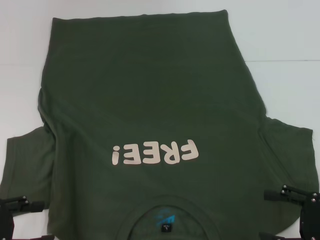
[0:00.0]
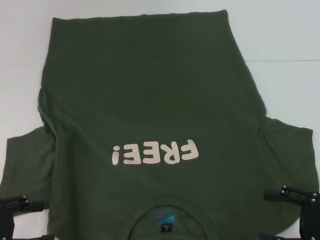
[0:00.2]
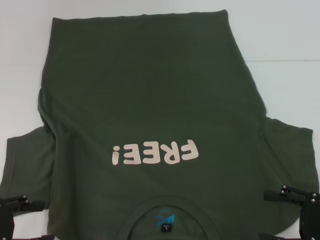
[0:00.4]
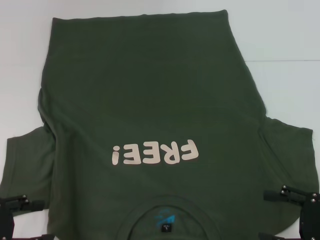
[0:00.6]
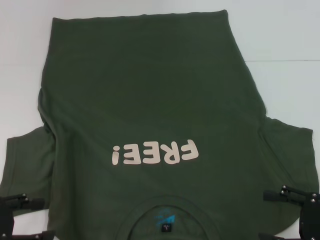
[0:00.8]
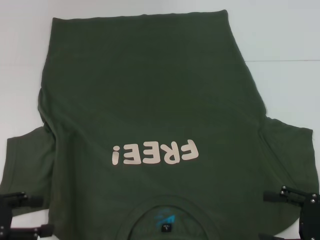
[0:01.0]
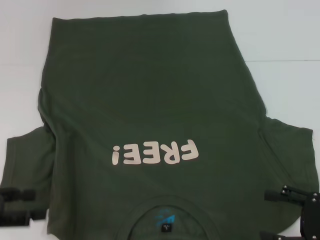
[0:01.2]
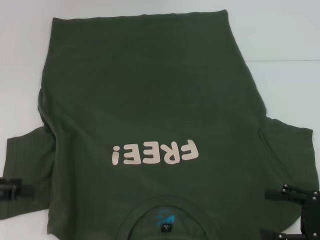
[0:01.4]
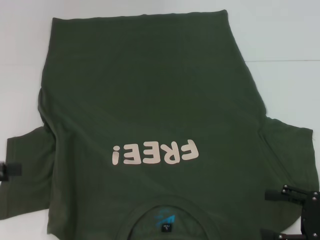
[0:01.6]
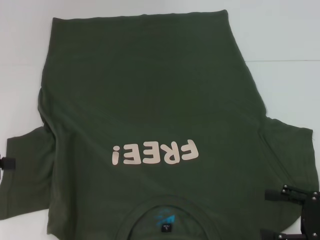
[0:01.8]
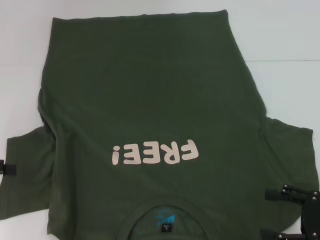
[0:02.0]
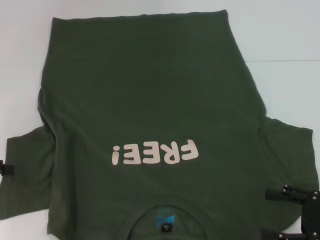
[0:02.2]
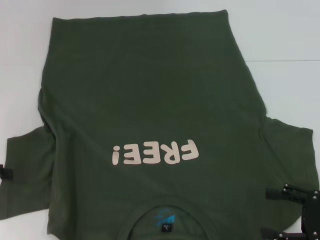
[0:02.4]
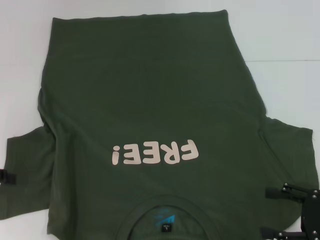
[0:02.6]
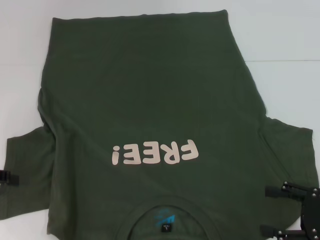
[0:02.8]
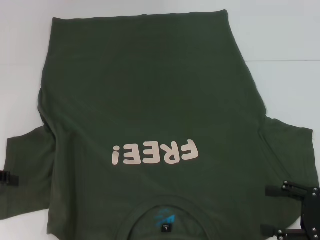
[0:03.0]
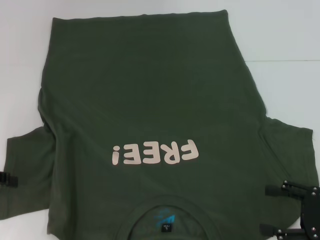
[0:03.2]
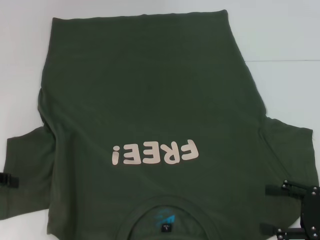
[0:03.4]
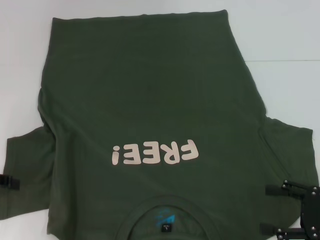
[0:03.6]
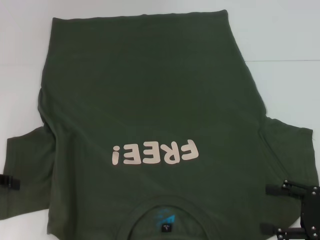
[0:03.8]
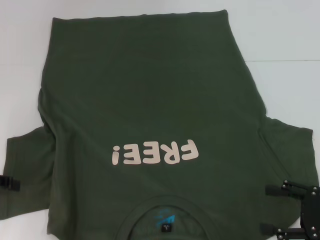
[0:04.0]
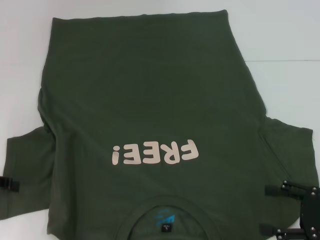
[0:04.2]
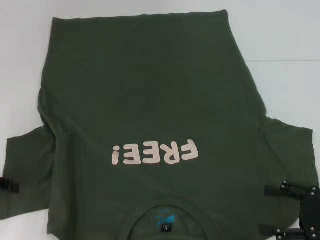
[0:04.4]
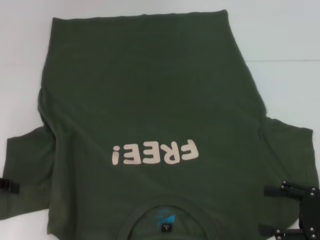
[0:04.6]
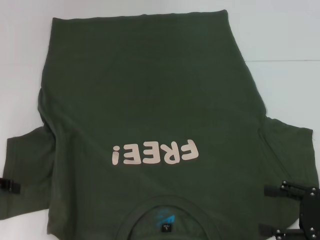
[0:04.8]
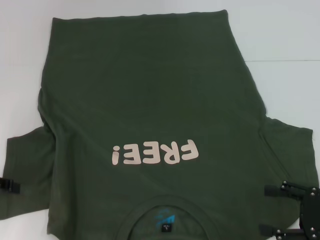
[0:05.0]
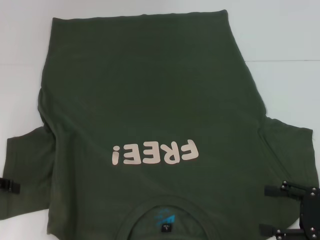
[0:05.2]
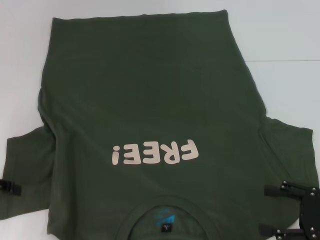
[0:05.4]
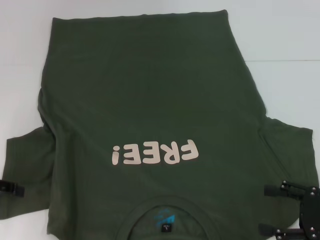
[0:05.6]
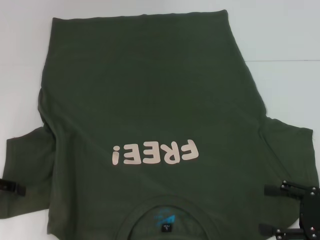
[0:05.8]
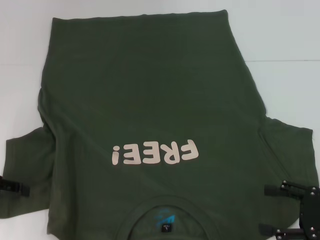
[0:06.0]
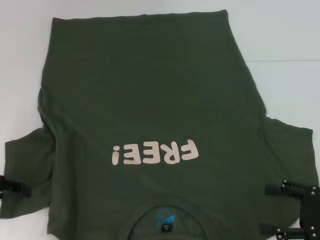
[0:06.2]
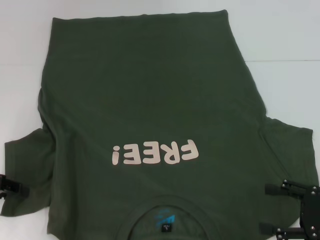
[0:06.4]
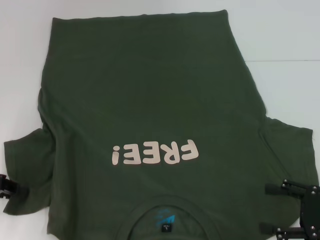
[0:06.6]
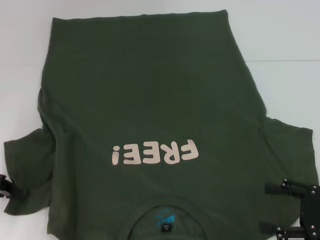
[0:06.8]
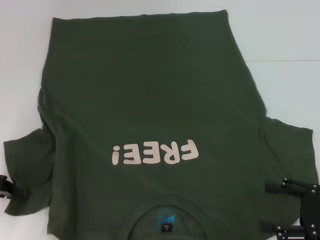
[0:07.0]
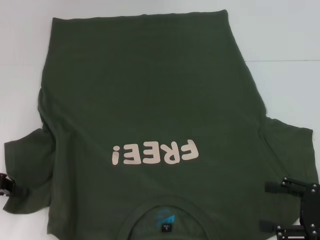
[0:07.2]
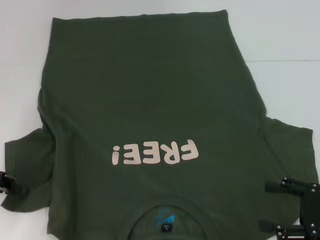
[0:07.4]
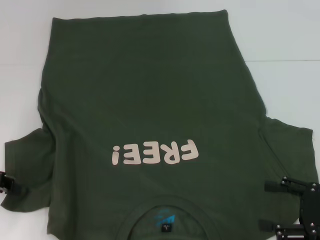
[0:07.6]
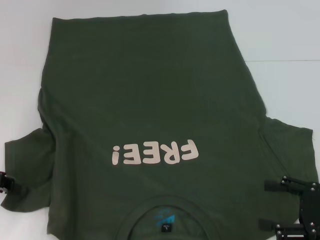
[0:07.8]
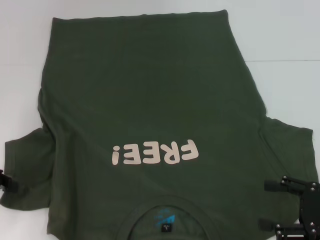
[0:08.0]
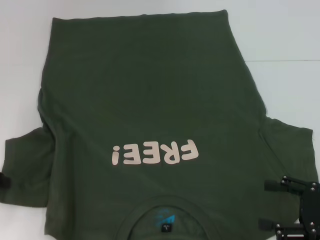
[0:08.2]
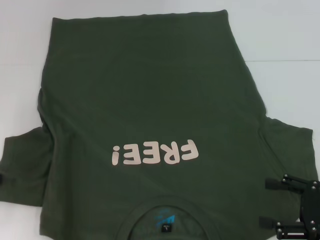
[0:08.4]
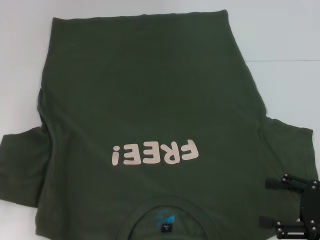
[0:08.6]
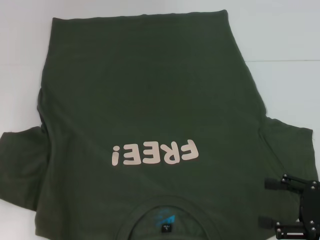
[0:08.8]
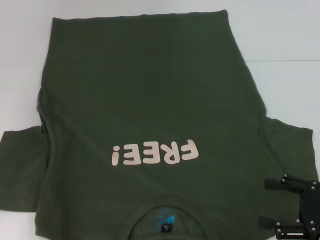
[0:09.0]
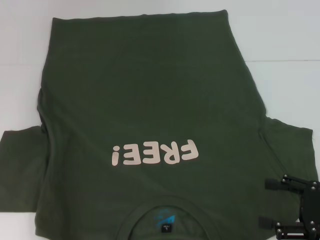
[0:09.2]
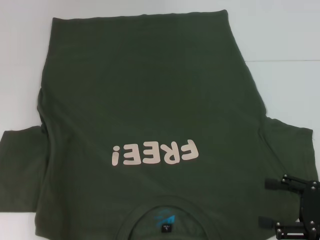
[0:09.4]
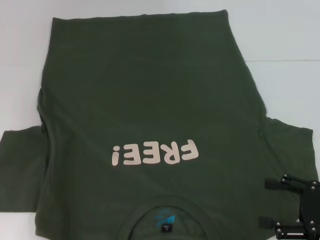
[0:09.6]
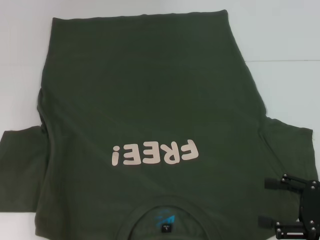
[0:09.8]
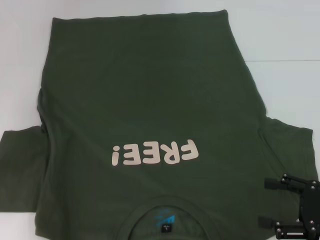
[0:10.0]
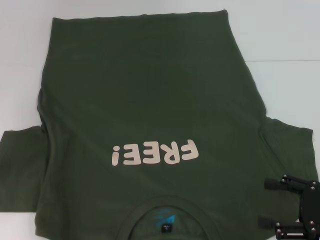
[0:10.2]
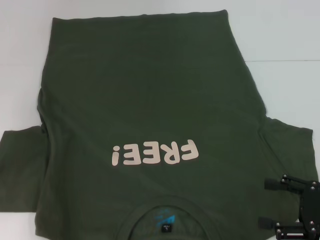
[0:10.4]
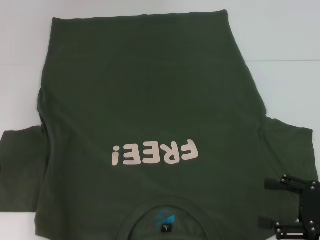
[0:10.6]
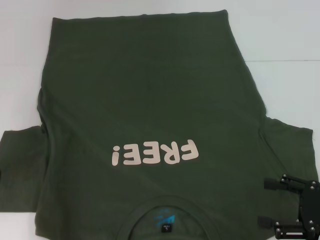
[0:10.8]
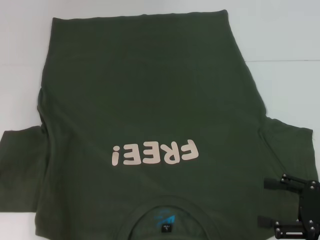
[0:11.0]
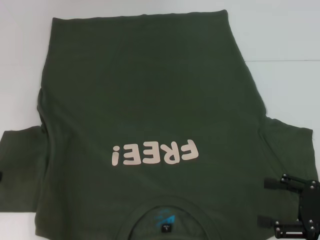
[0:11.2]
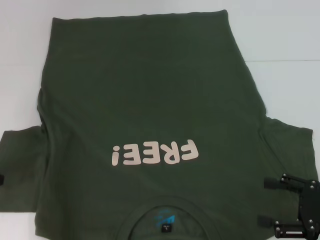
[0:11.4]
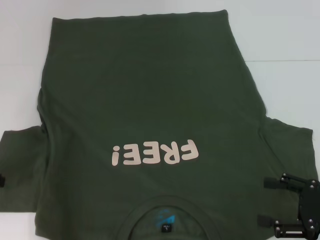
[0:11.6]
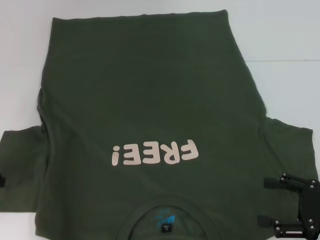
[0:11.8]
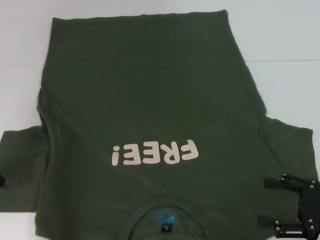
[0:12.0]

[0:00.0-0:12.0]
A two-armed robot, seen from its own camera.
0:00.0 to 0:01.6: The left gripper moves upward, about 5 cm.
0:06.0 to 0:07.6: The left gripper closes its fingers.
0:07.6 to 0:09.0: The left gripper shifts about 5 cm upward.

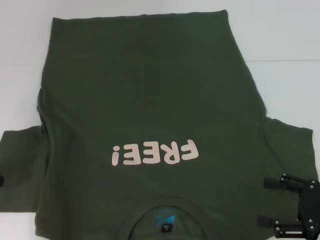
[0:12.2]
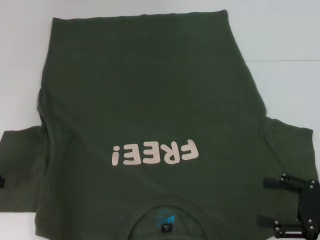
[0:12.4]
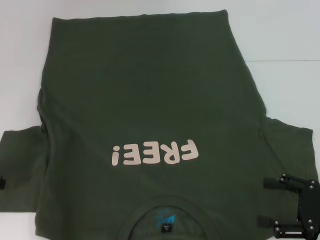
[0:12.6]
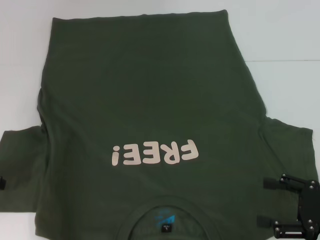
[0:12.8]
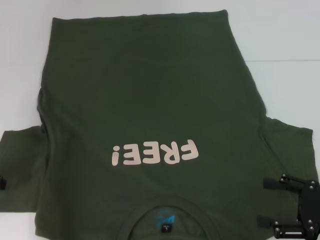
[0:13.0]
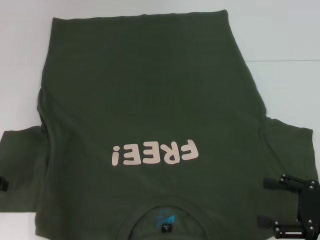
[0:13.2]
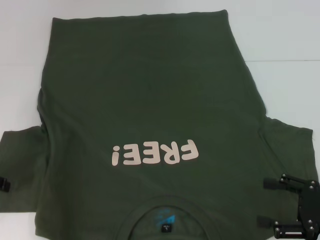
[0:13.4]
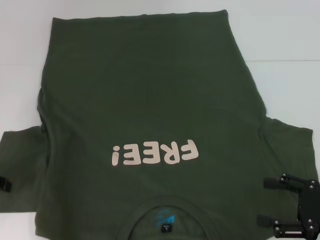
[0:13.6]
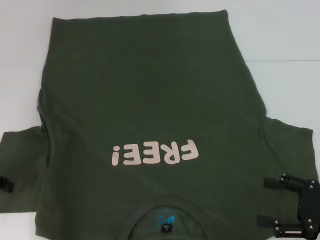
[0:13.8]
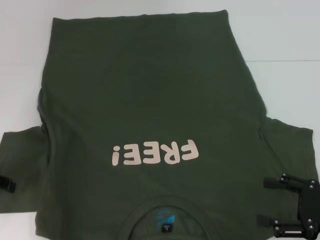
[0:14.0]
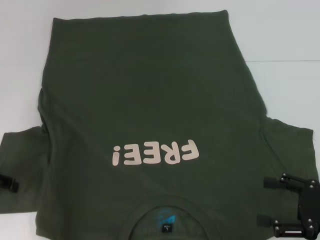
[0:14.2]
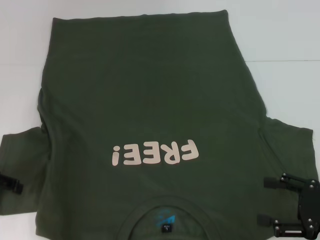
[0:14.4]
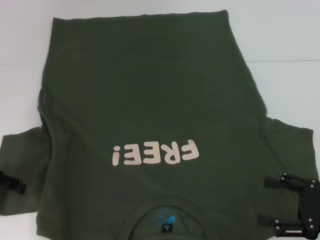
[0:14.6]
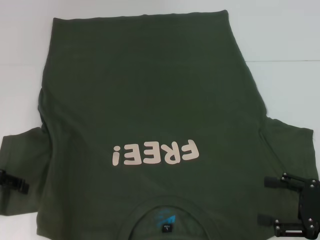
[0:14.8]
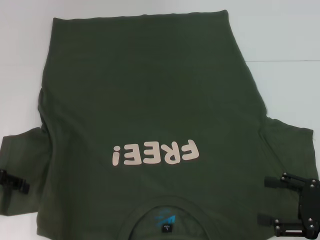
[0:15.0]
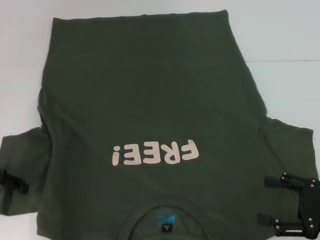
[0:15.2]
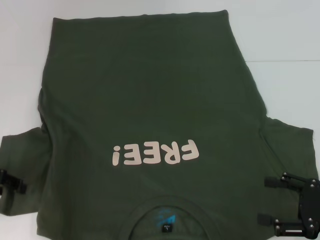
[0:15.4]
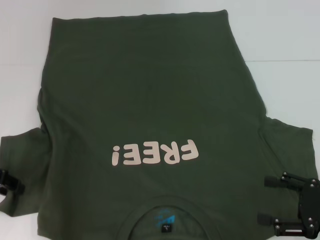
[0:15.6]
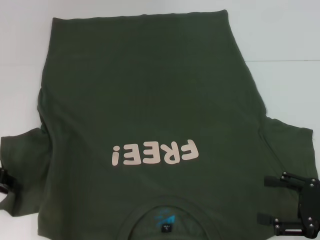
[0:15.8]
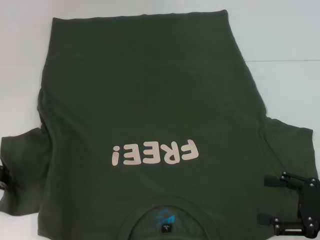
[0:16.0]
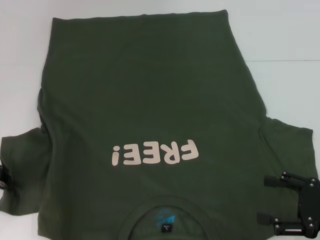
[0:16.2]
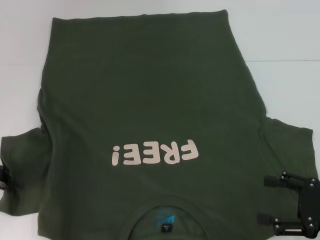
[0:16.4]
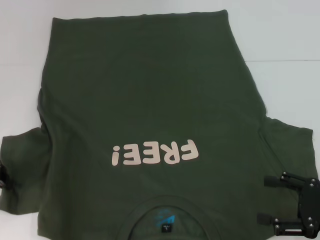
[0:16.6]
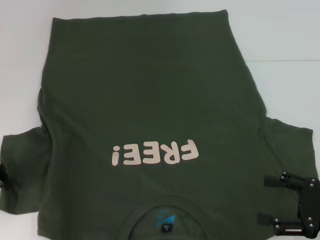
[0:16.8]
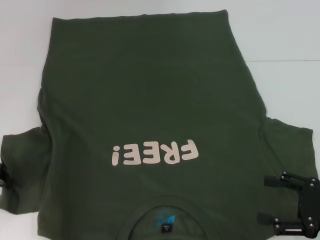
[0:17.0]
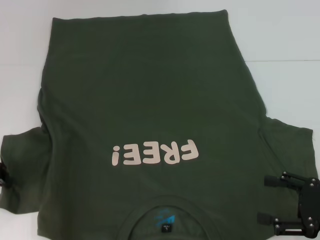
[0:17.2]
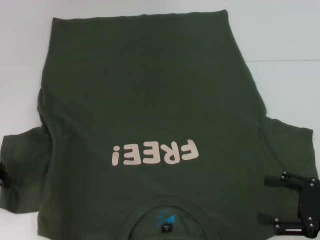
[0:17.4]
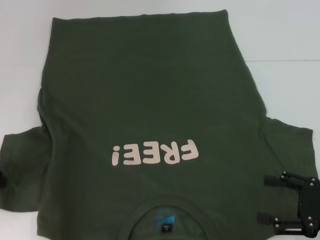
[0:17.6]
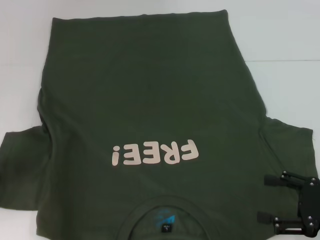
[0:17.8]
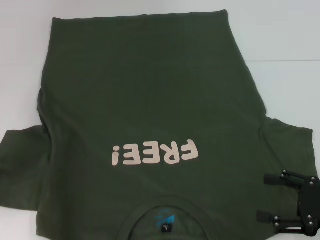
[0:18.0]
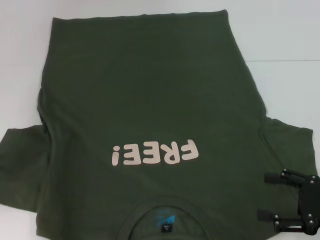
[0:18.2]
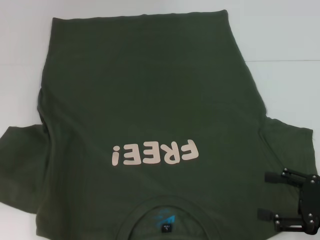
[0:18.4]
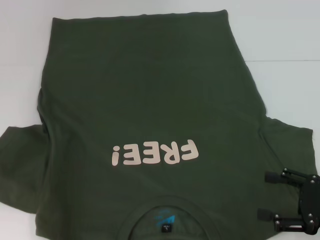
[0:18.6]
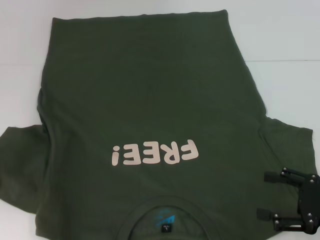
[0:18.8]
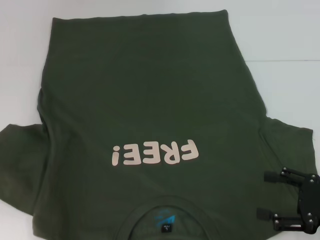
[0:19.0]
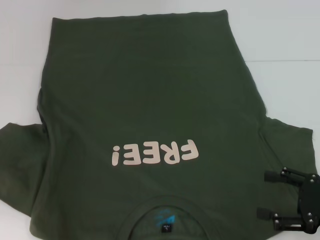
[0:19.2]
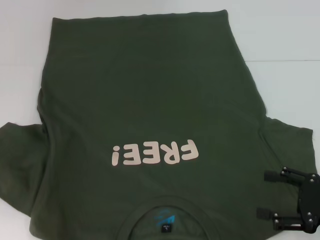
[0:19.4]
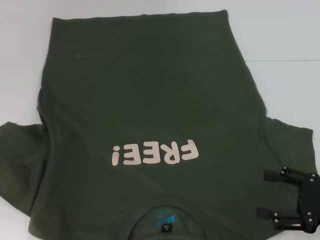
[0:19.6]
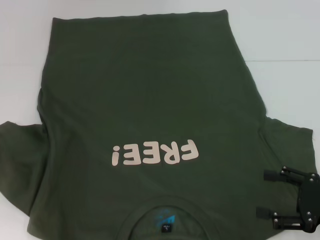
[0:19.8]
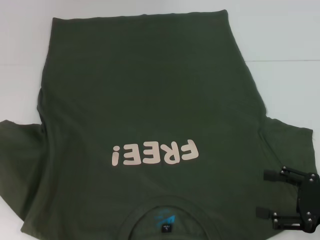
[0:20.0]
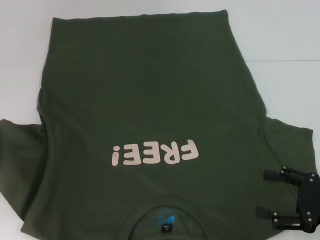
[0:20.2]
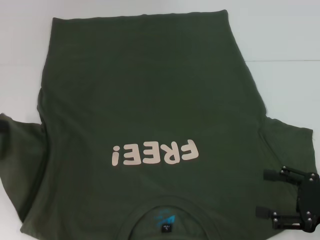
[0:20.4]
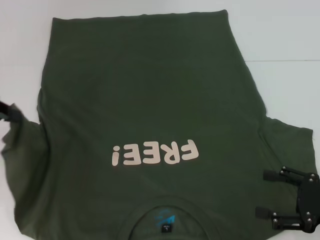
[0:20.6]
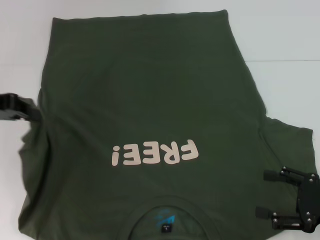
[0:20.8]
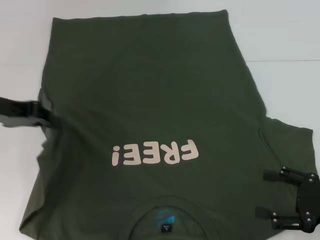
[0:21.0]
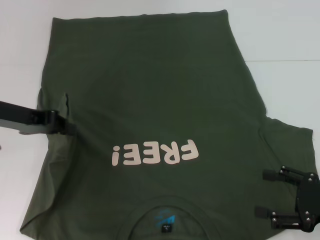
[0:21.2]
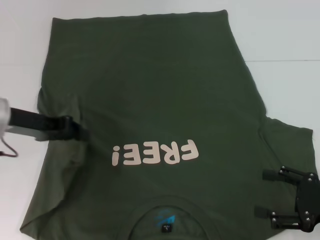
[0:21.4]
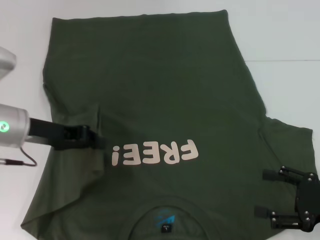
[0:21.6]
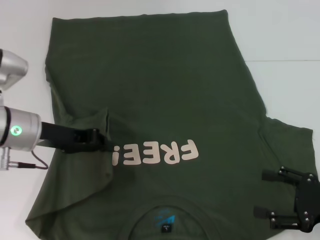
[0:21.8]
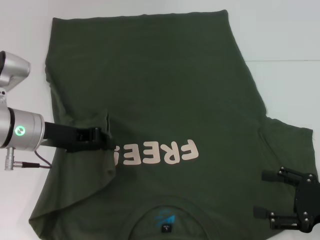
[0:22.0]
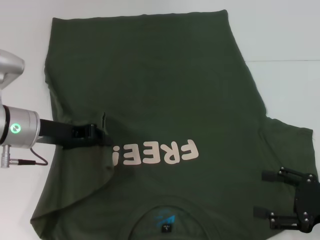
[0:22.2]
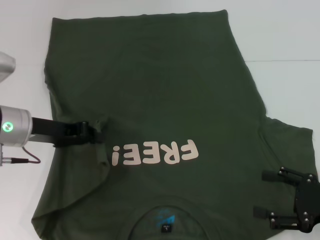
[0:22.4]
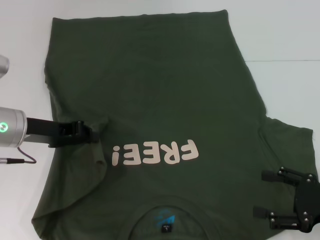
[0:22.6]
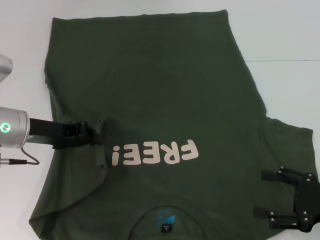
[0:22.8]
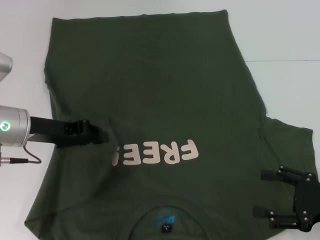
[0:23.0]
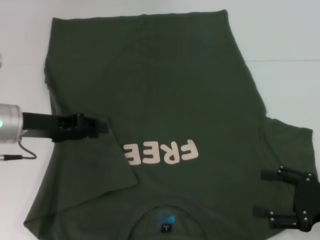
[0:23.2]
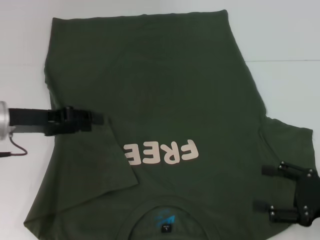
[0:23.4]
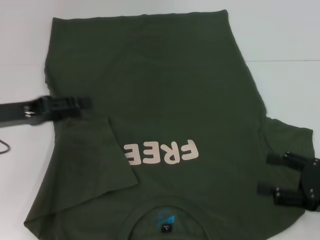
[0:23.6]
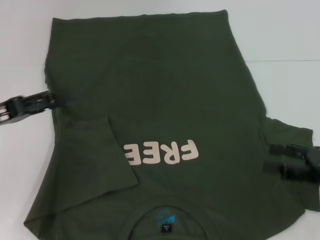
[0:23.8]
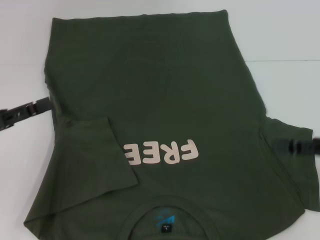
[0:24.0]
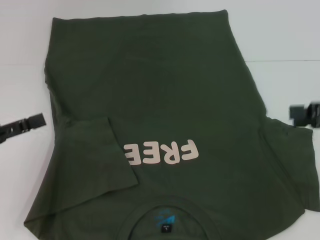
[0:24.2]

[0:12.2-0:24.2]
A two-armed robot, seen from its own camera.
Step, 0:12.2 to 0:23.0: Fold the bottom left sleeve with your left hand.
0:13.8 to 0:15.2: There are only small adjustments of the grippers.
0:16.6 to 0:19.8: The grippers stay close to where they were, moving slightly.
0:19.8 to 0:21.2: The left gripper moves to the right, some 10 cm.
0:21.2 to 0:22.6: The left gripper moves roughly 5 cm.
0:22.6 to 0:24.2: The right gripper heads upward and forward, covering about 15 cm. The left gripper travels to the left and backward by about 15 cm, and opens.
